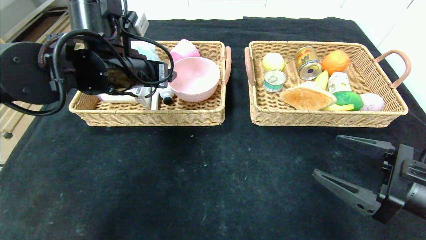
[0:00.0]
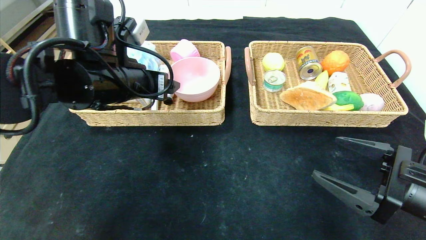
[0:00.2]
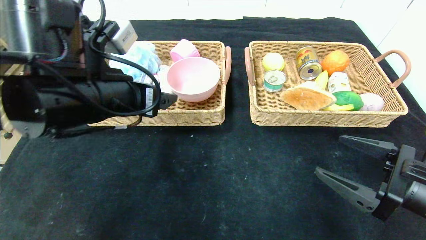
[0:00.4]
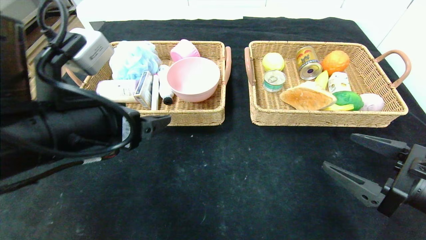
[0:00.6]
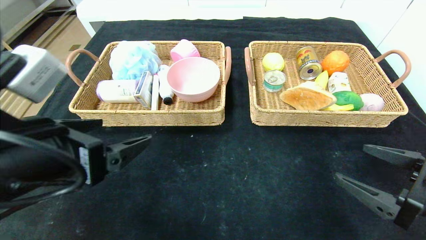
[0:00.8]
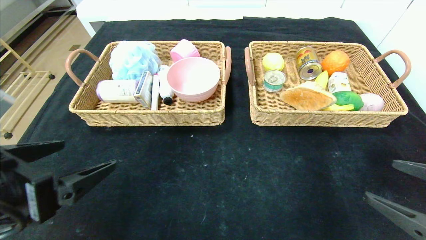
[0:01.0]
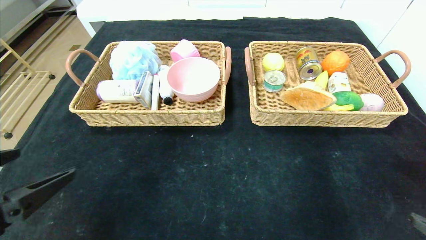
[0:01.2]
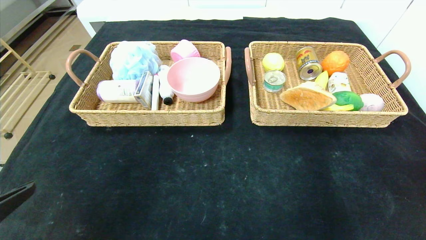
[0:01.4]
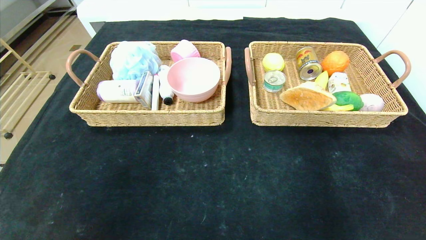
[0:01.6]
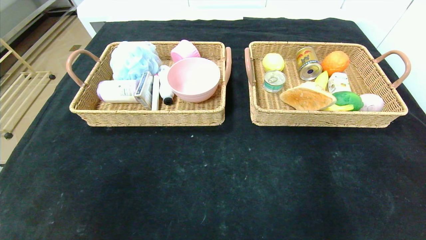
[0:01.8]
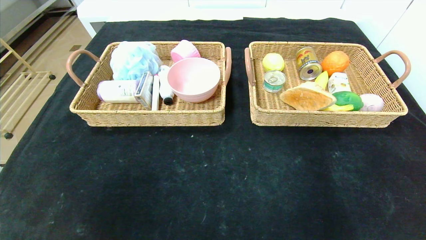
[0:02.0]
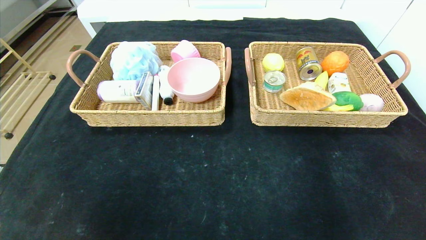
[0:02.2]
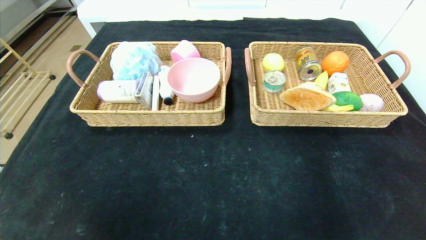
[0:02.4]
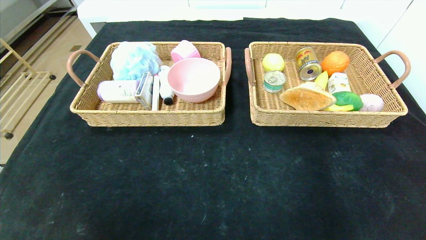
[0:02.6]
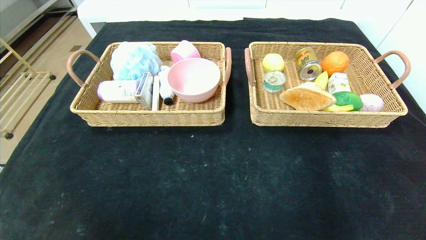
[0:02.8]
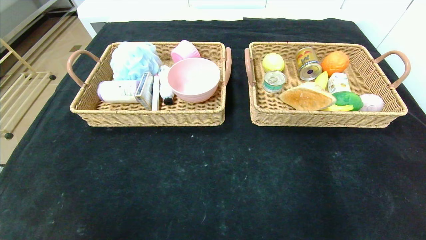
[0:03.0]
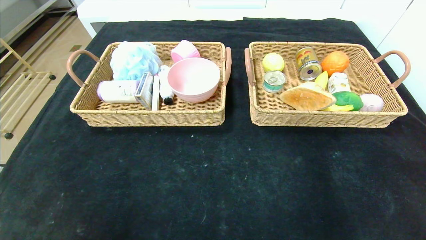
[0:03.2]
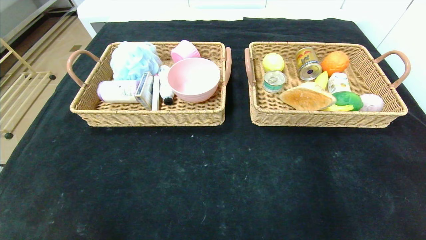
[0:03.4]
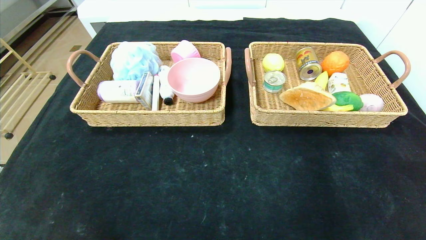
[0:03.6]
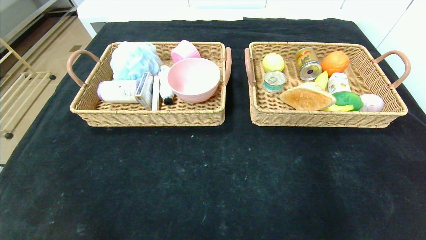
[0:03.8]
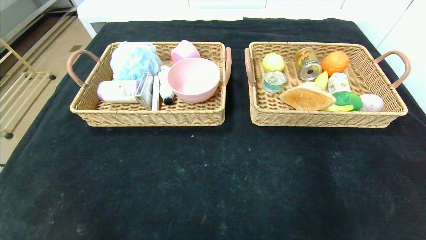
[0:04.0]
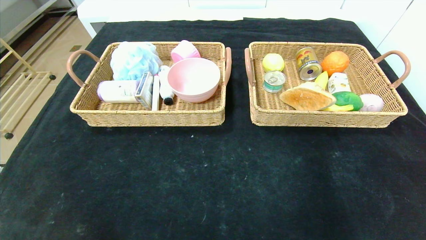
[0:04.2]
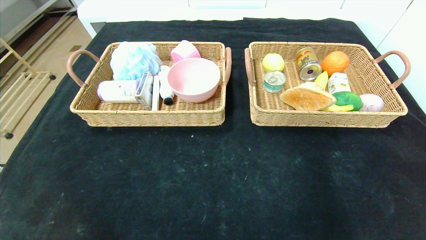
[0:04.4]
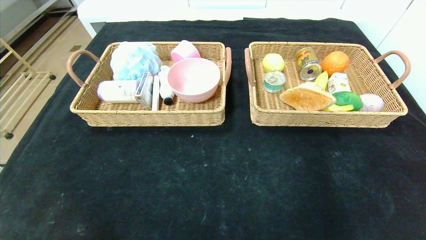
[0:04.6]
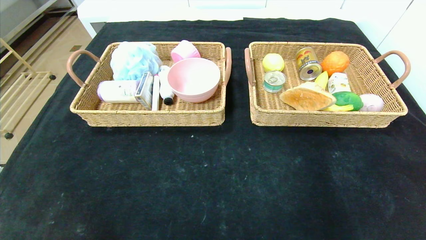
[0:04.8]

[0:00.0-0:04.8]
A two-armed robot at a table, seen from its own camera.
0:00.0 to 0:01.6: The right gripper travels backward and to the right by roughly 20 cm; the left gripper goes approximately 35 cm backward and to the left.
0:01.6 to 0:03.2: Both grippers move downward, about 10 cm.

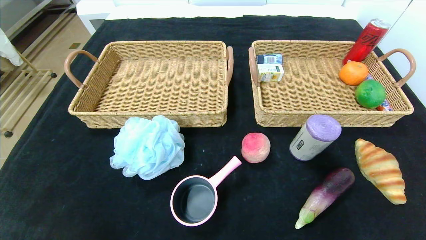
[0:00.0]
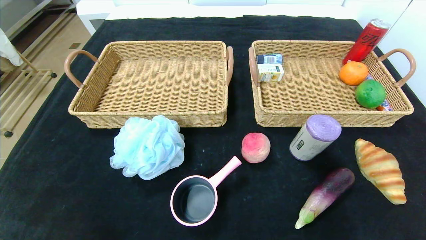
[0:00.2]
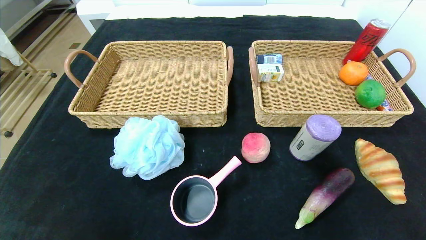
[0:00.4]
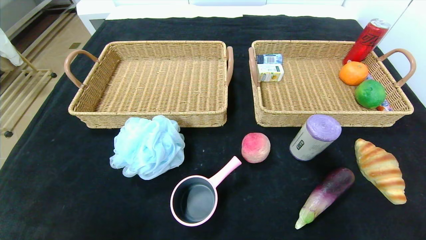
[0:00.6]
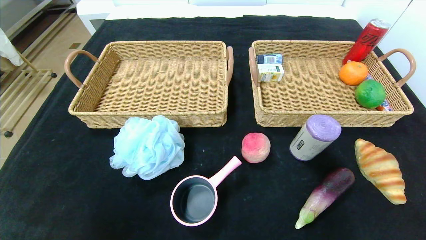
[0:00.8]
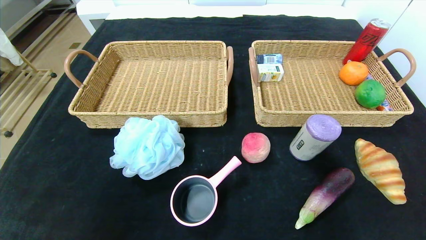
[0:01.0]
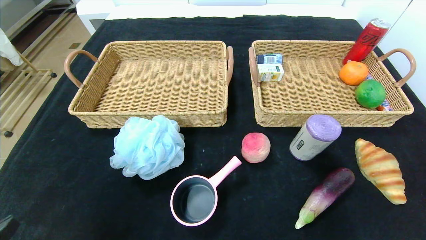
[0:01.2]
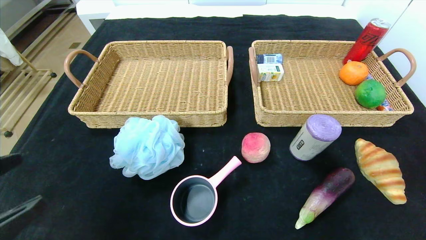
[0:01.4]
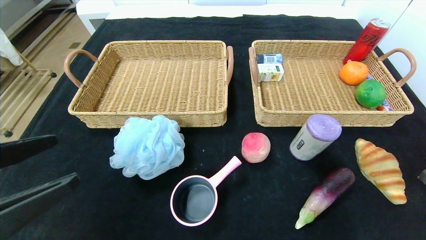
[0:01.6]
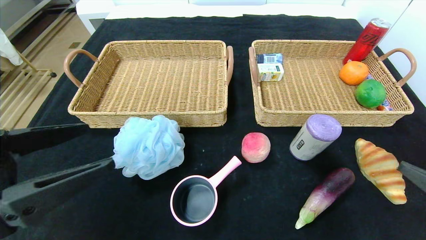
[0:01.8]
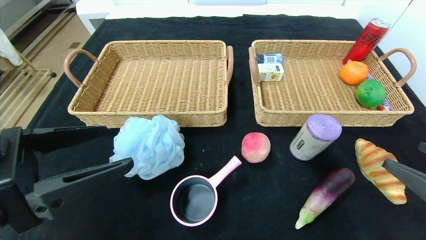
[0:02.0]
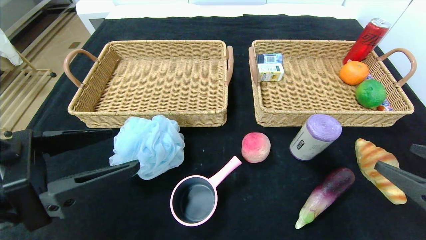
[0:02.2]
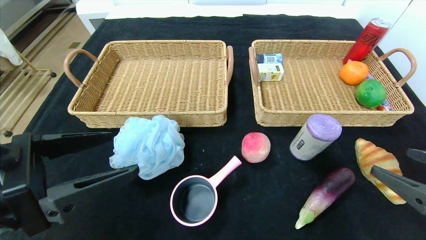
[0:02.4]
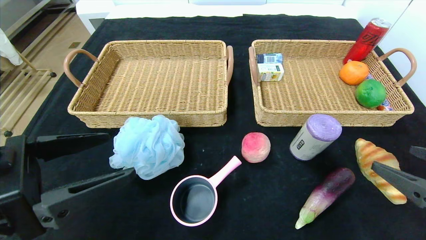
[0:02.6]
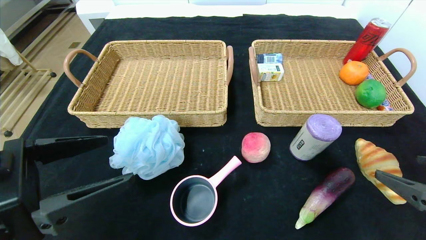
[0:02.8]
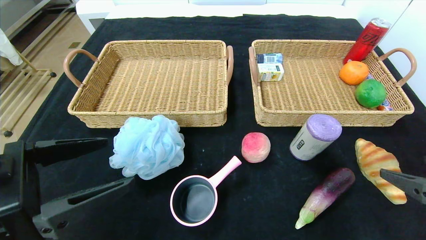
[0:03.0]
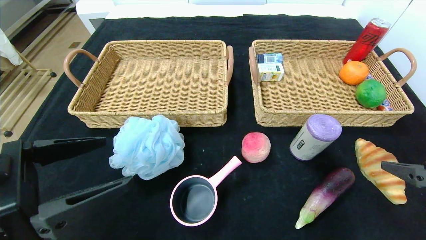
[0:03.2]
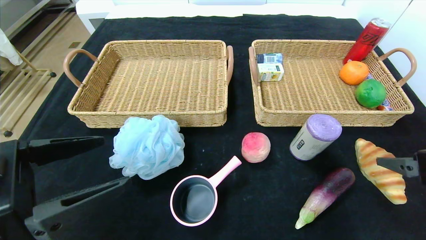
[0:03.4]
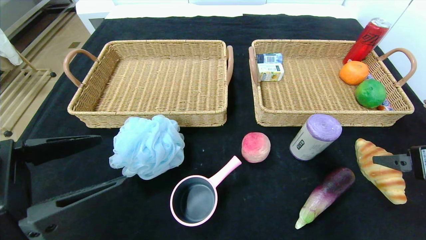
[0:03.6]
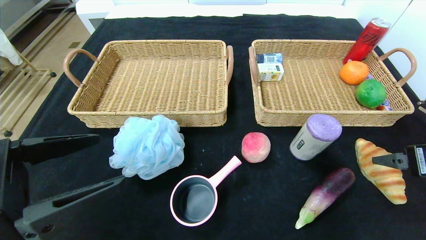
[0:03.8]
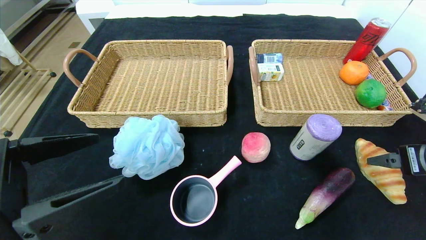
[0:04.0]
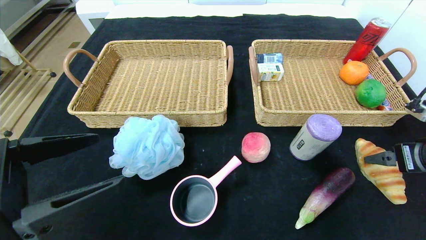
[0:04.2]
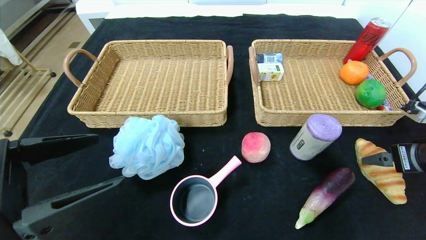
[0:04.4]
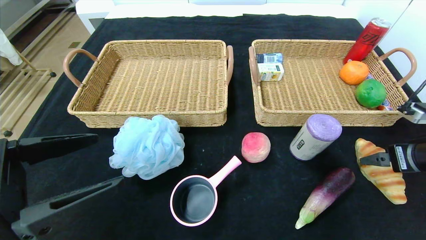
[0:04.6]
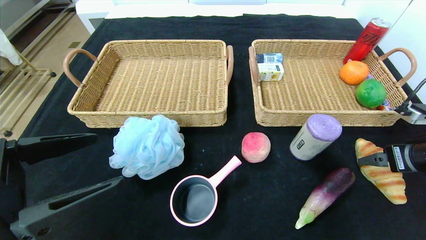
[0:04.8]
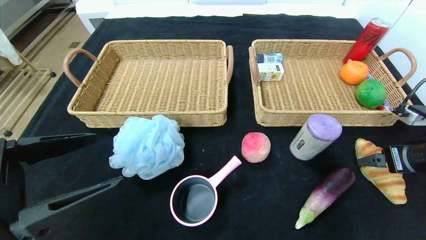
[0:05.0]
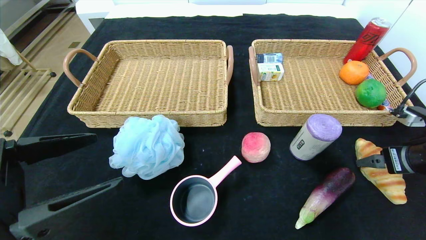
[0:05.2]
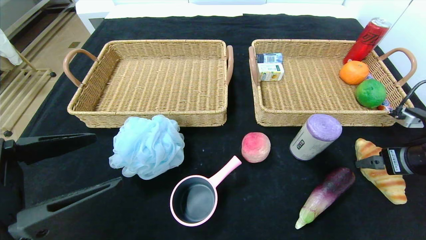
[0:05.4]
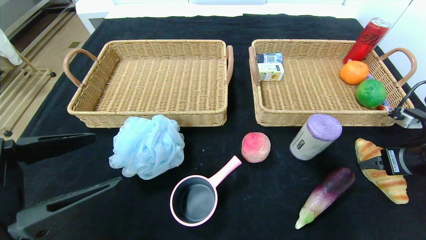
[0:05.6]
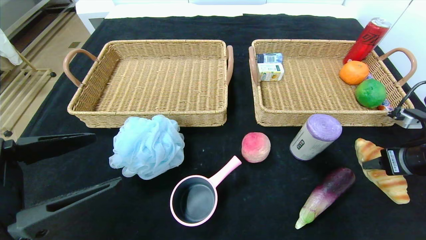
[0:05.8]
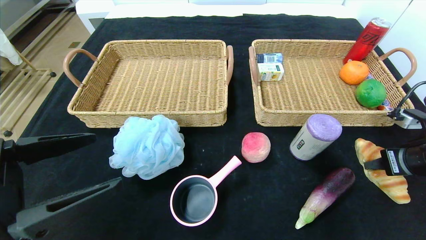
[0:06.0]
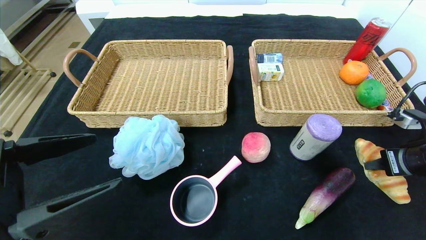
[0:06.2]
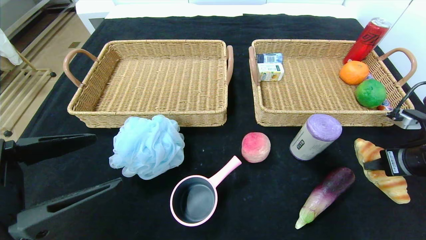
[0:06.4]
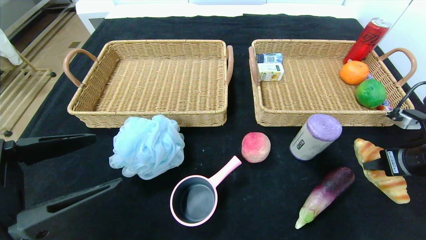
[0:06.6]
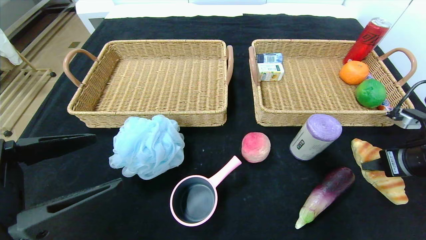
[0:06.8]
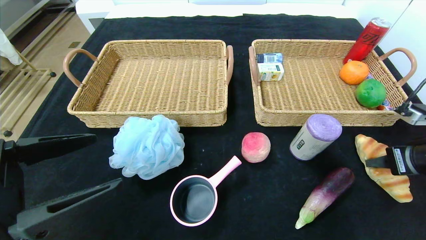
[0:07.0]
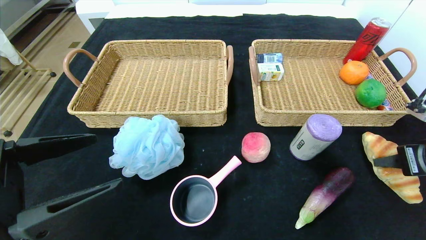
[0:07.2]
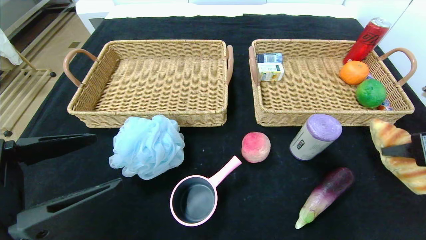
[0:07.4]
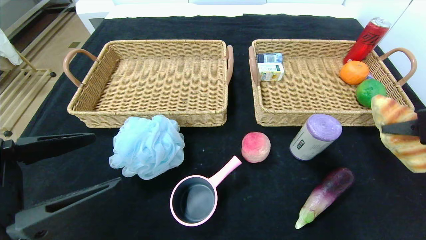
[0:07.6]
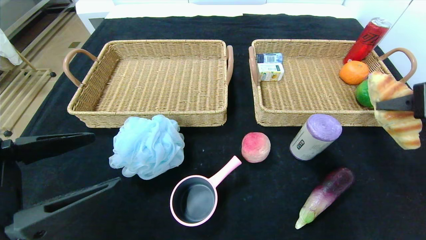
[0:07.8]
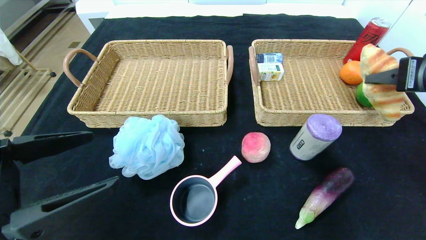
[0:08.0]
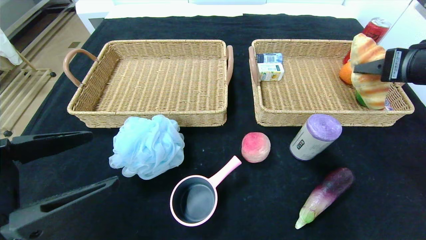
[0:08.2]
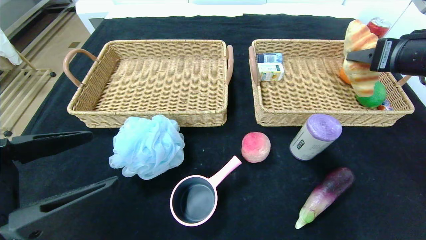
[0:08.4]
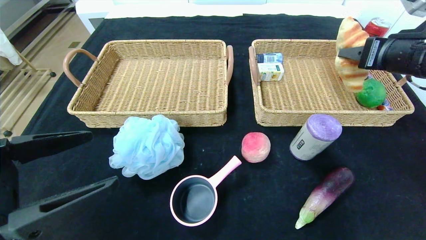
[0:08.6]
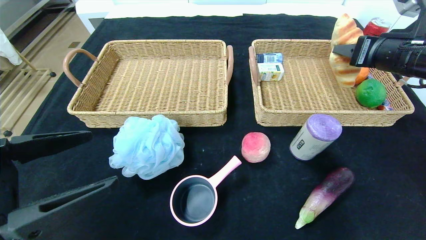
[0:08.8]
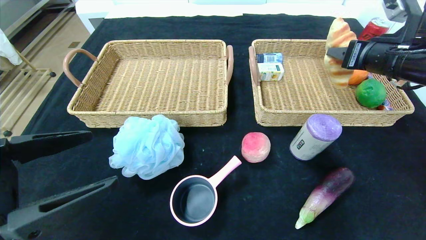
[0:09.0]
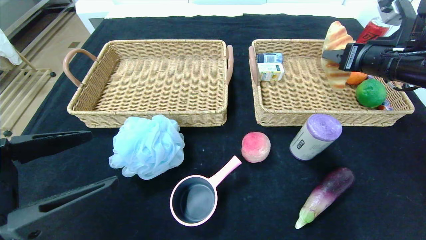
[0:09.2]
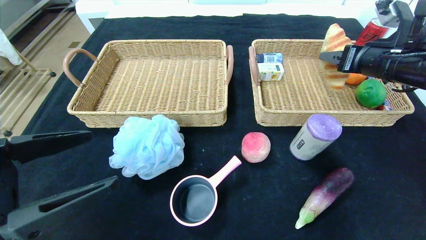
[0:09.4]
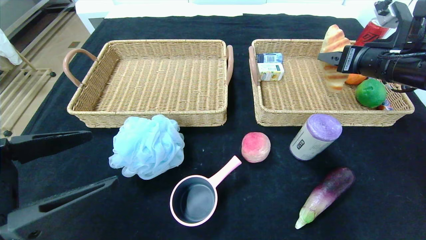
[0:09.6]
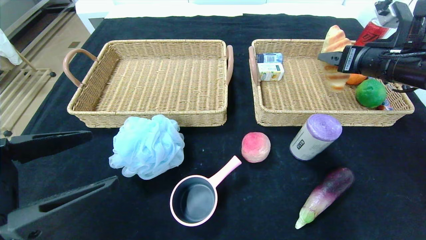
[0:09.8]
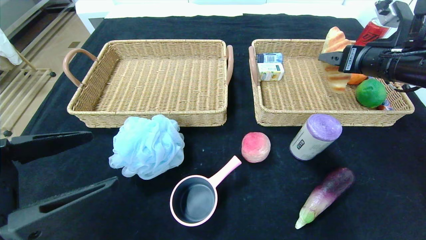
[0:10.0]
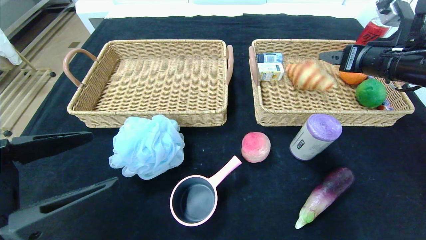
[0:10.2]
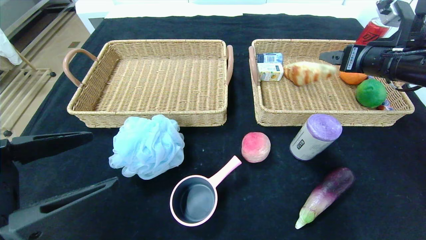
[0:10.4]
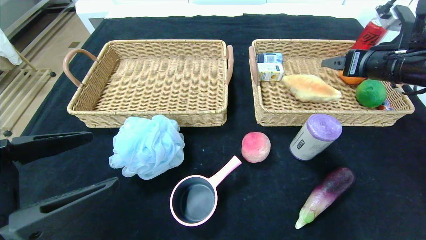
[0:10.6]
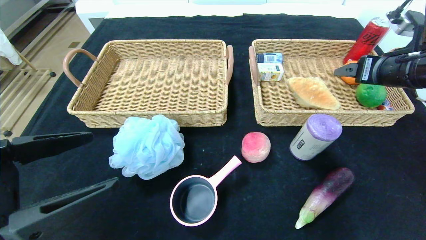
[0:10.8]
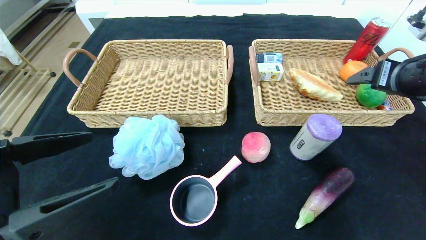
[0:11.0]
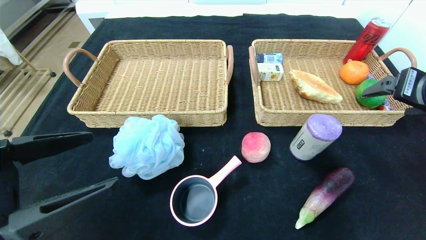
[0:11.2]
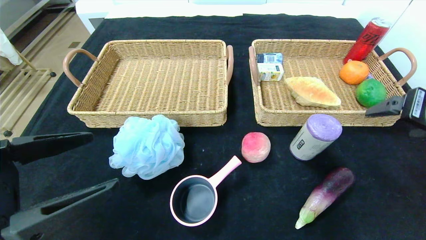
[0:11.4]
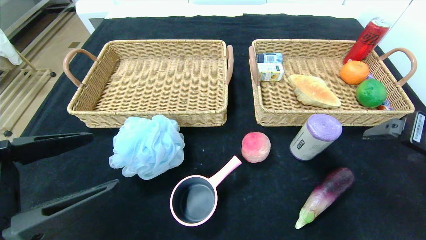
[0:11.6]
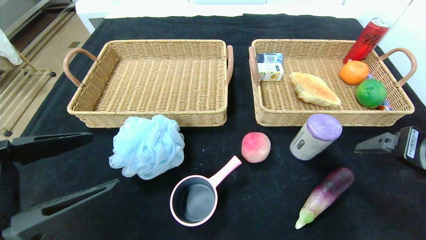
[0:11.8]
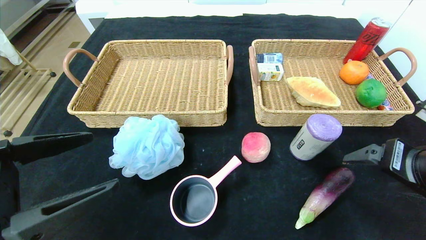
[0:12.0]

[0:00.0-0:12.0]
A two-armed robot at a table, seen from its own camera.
Step, 0:00.0 to 0:11.6: Pick up the croissant and put it in the right basket.
0:00.0 to 0:01.6: Both grippers travel together upward and forward, some 20 cm.
0:01.6 to 0:03.0: The right gripper changes place by approximately 5 cm.
0:03.0 to 0:04.4: The right gripper travels forward by roughly 10 cm.
0:04.4 to 0:06.0: The right gripper closes its fingers.
0:06.0 to 0:07.6: The right gripper heads upward, covering some 10 cm.
0:07.6 to 0:09.0: The right gripper shifts approximately 15 cm forward.
0:09.0 to 0:10.4: The right gripper opens its fingers.
0:10.4 to 0:12.0: The right gripper heads backward and downward, covering roughly 20 cm.
